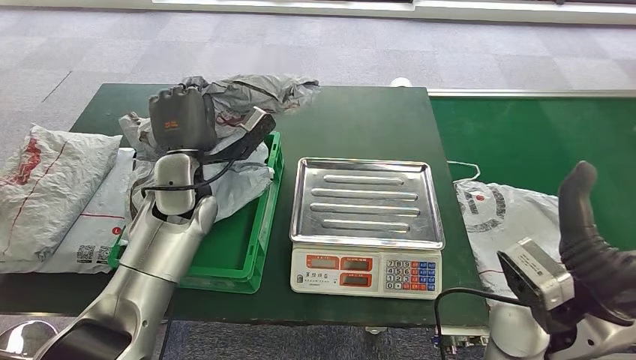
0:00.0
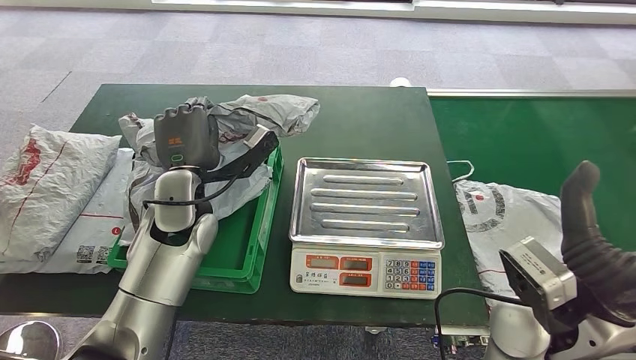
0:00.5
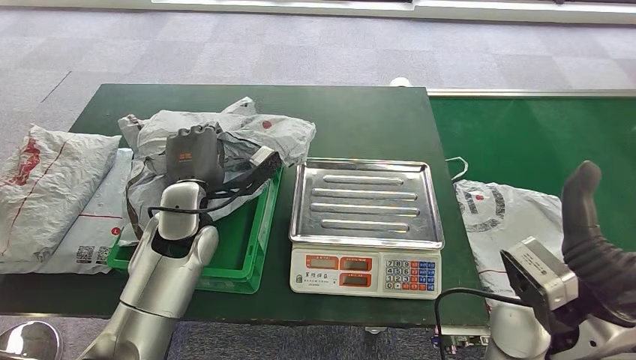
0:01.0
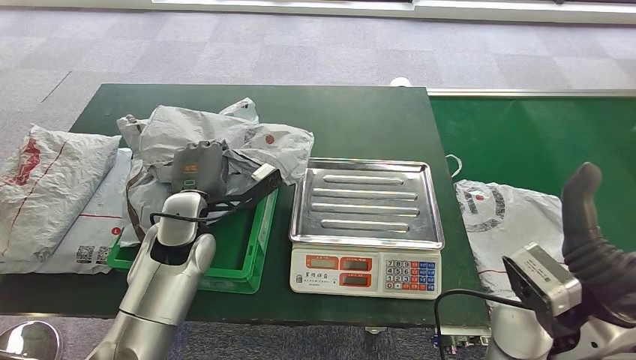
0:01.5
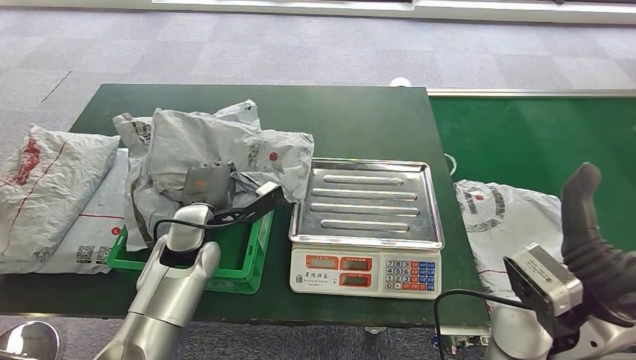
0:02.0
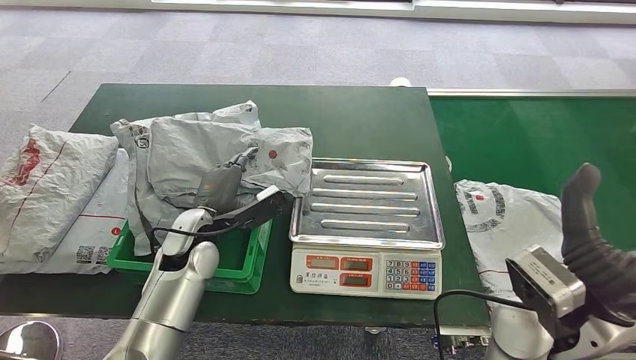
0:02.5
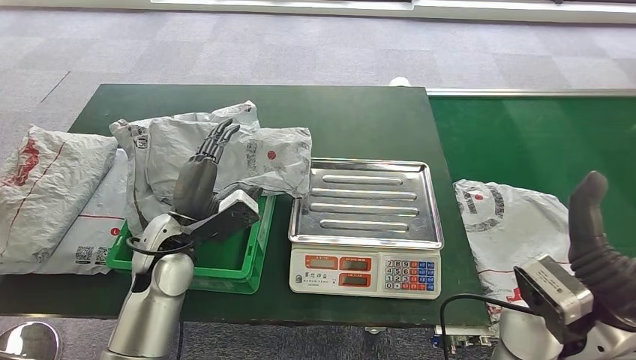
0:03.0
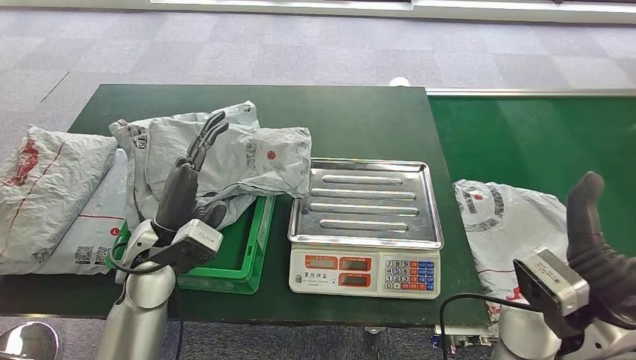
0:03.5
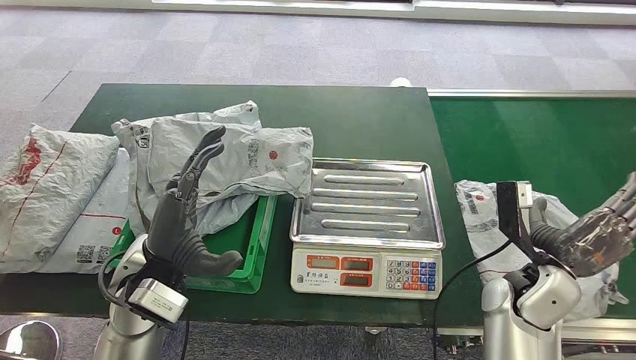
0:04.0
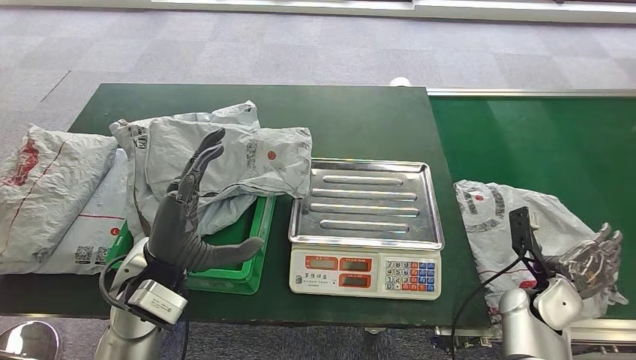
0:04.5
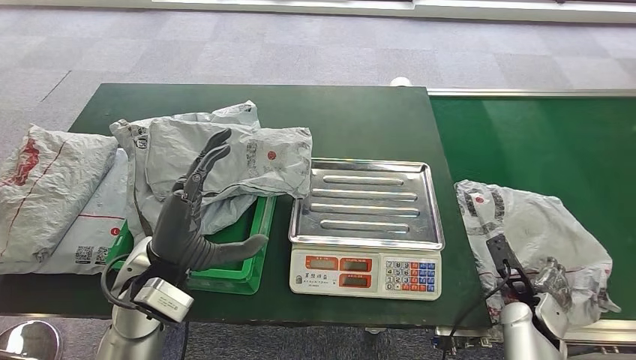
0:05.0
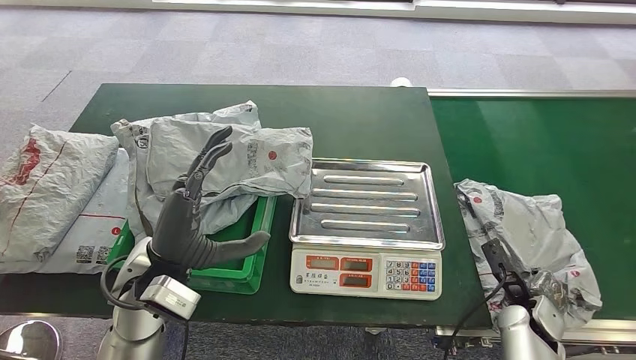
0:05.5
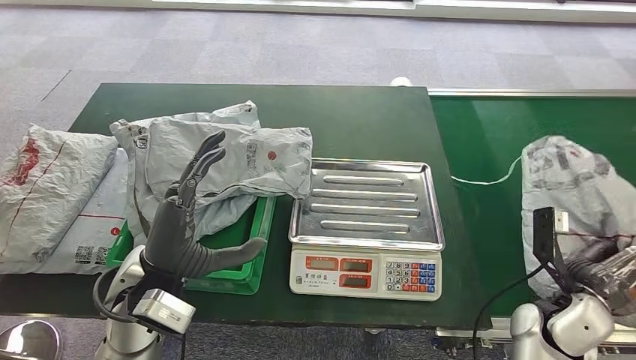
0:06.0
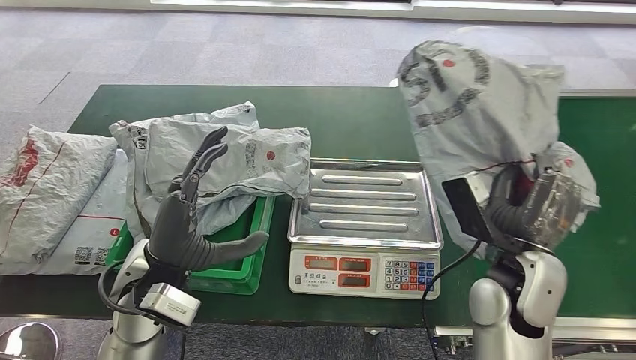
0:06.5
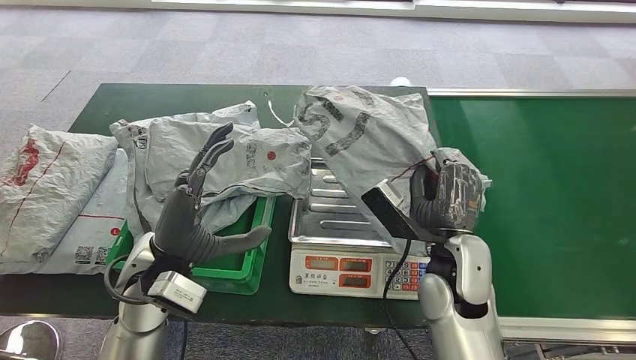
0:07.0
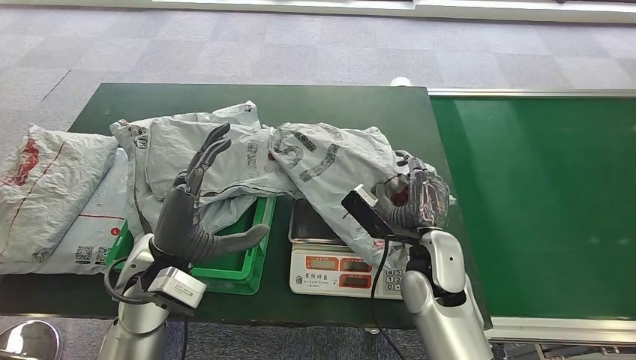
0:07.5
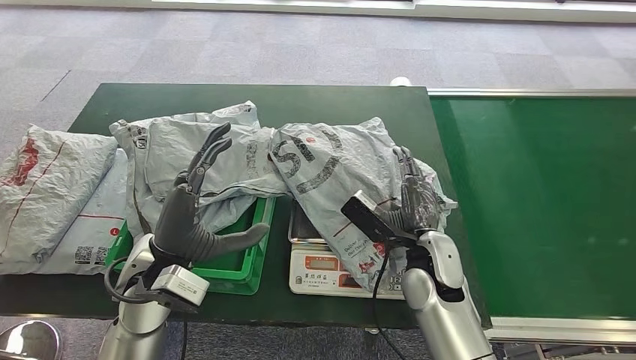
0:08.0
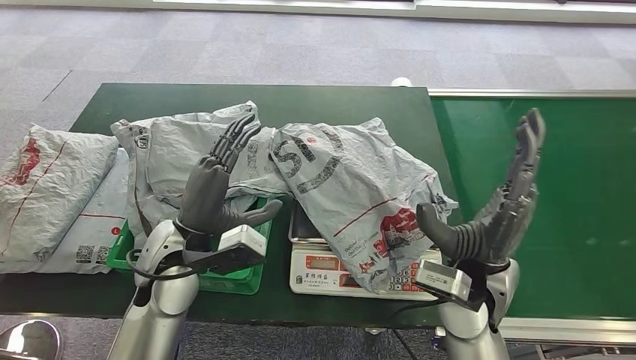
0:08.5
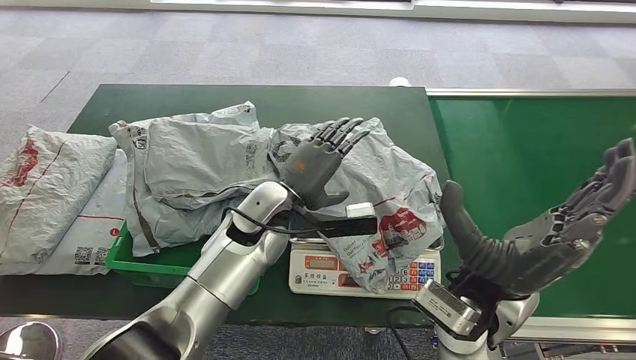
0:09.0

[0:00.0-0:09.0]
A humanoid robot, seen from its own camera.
Step, 0:00.0 to 0:03.5: Place the parcel into the delivery box.
Step, 0:05.5 to 0:06.5: Pick up the parcel from the conveyor belt.
Step, 0:07.0 to 0:08.0: Place the parcel onto the inbound machine.
0:00.0 to 0:02.0: The left hand is displaced downward and backward by roughly 10 cm.
0:02.0 to 0:04.5: The left hand shifts approximately 10 cm backward and upward. Meanwhile the right hand travels downward and to the right by about 25 cm.

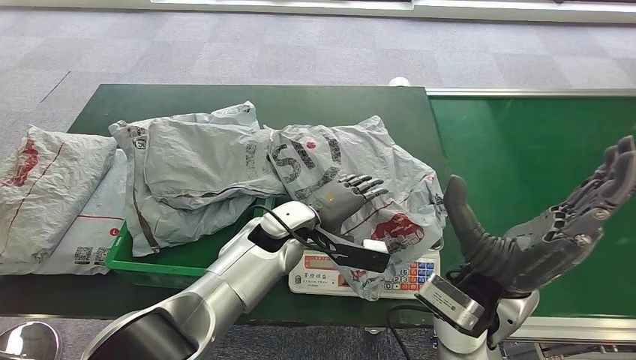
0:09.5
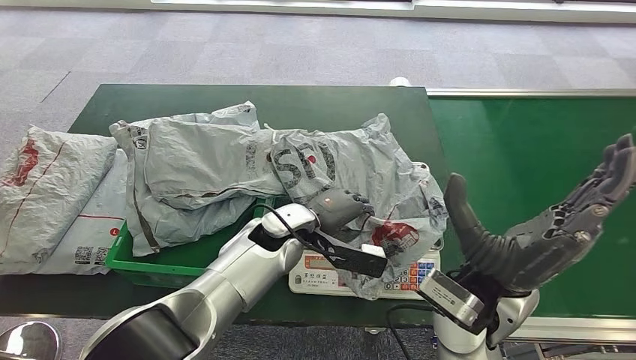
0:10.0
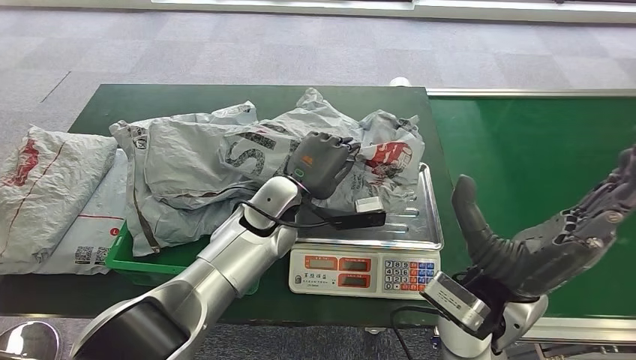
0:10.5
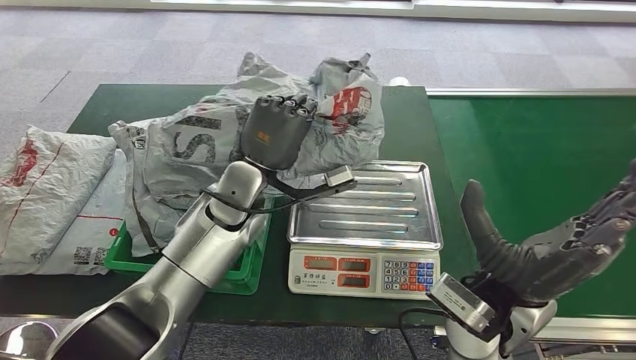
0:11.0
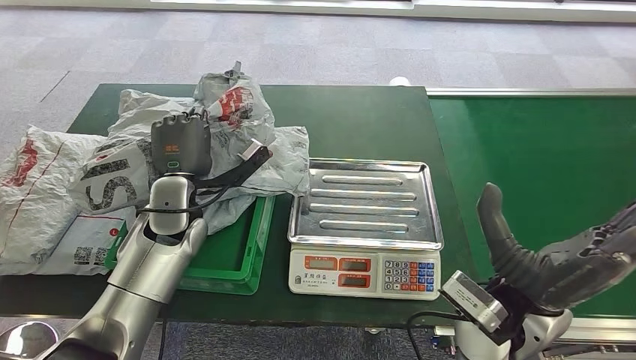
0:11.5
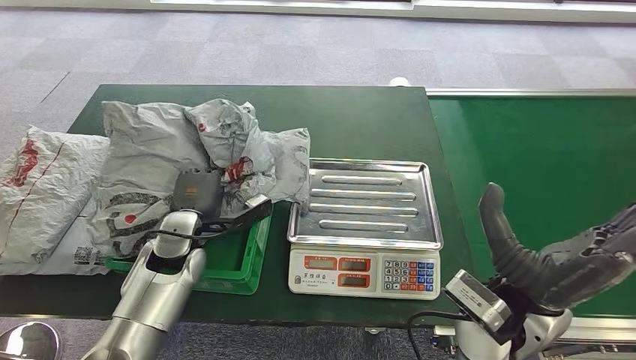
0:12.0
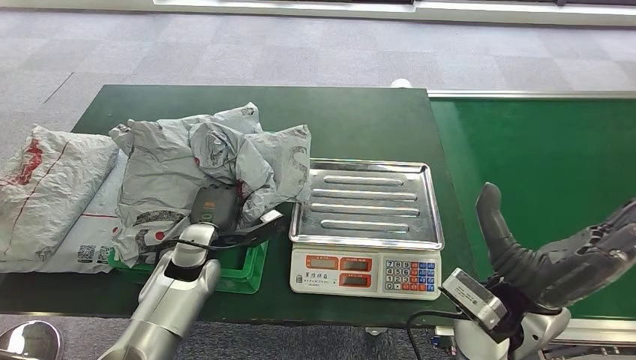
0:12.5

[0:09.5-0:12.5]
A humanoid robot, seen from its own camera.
Step, 0:09.5 to 0:11.0: Pick up the parcel from the inbound machine.
Step, 0:11.5 to 0:12.5: Place the parcel into the delivery box.
